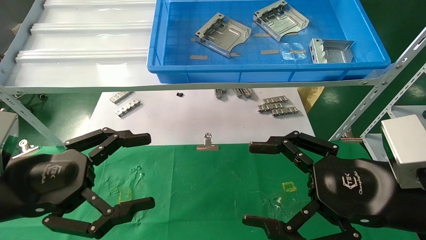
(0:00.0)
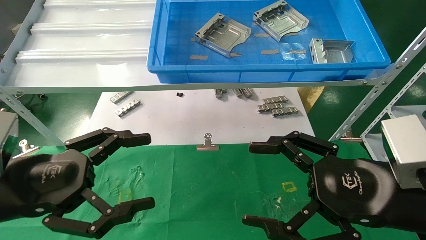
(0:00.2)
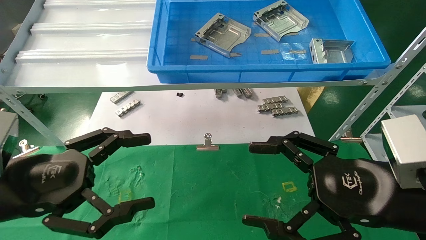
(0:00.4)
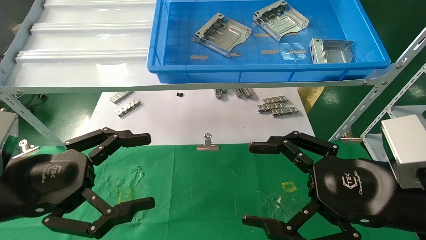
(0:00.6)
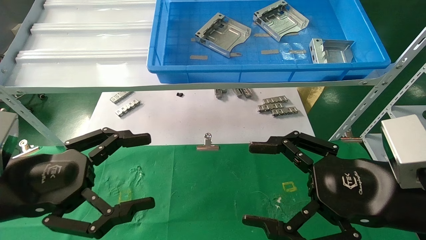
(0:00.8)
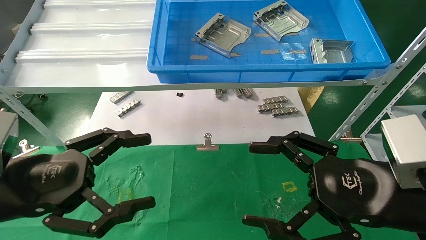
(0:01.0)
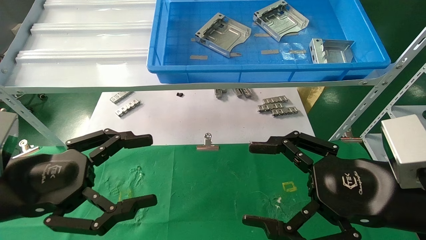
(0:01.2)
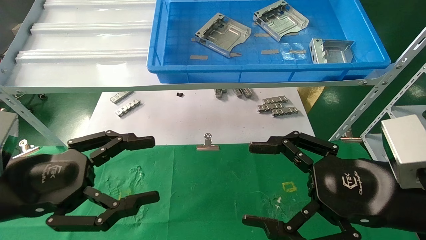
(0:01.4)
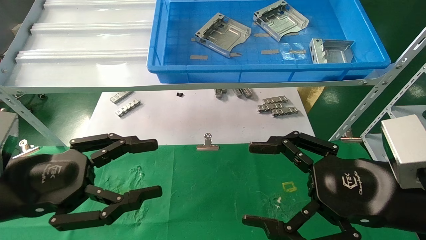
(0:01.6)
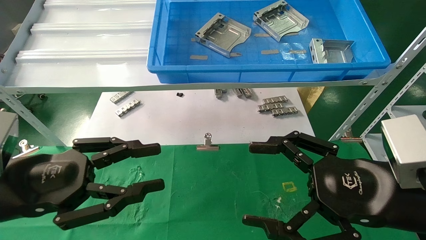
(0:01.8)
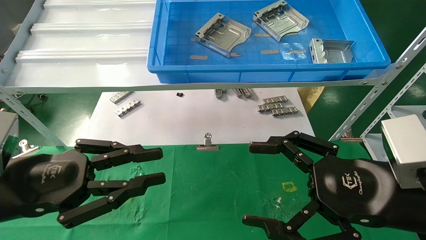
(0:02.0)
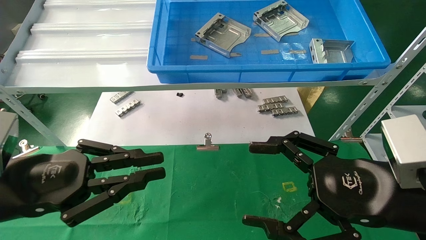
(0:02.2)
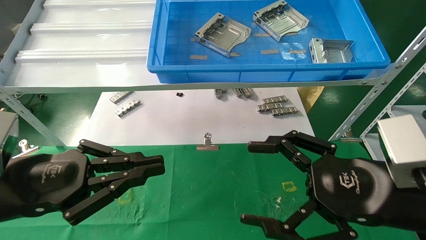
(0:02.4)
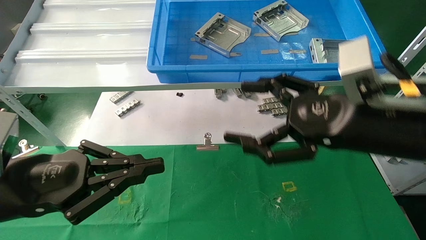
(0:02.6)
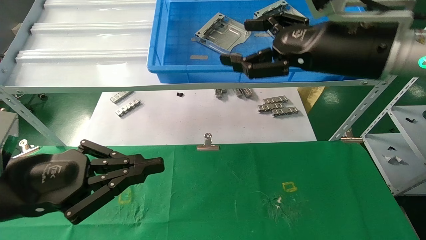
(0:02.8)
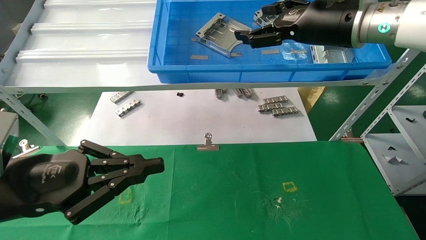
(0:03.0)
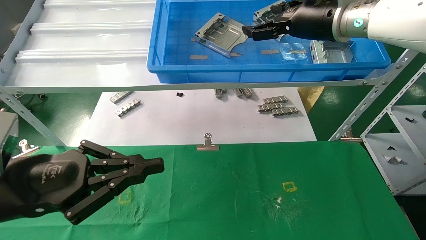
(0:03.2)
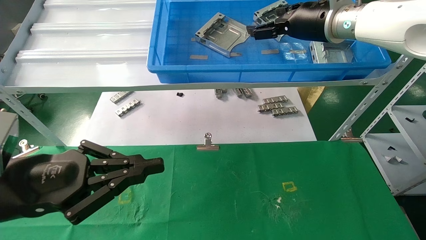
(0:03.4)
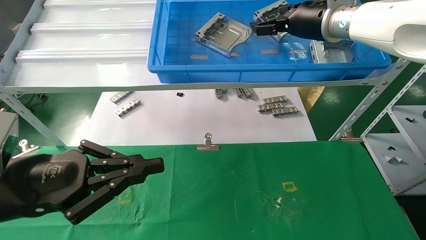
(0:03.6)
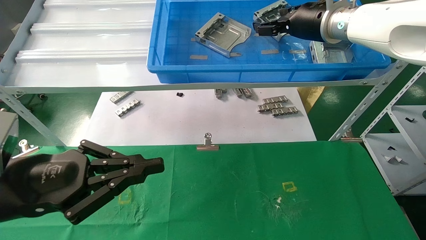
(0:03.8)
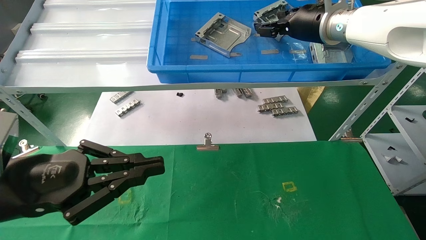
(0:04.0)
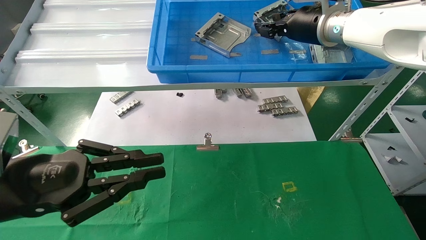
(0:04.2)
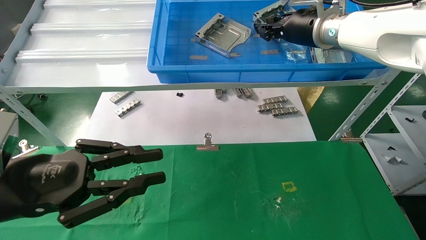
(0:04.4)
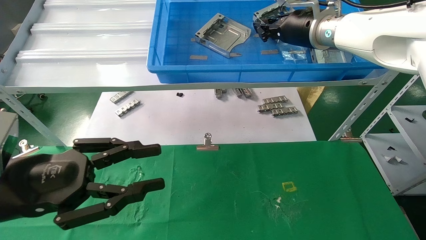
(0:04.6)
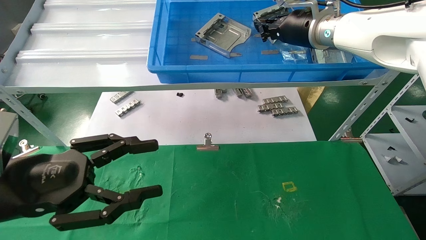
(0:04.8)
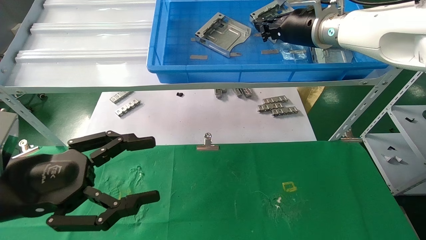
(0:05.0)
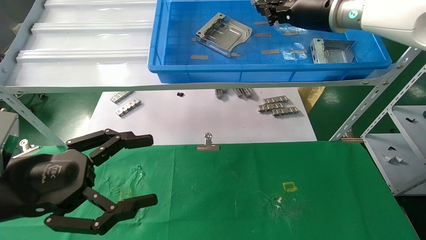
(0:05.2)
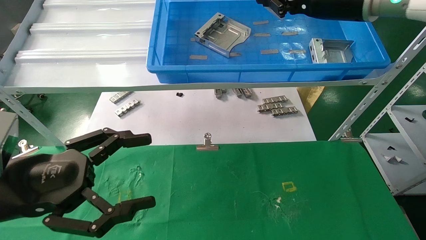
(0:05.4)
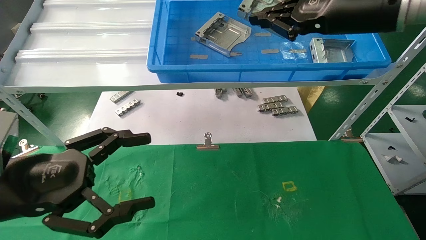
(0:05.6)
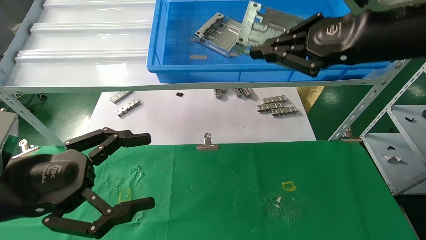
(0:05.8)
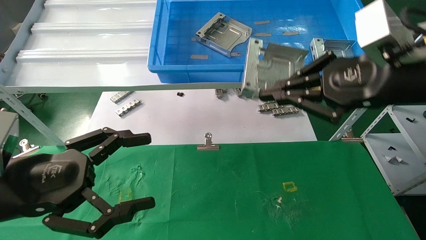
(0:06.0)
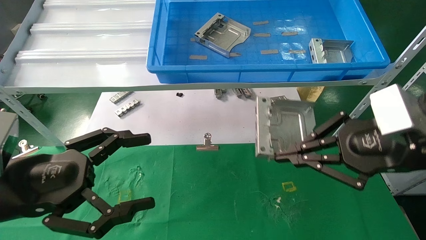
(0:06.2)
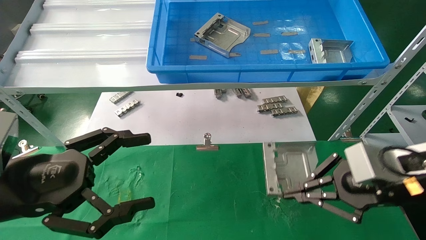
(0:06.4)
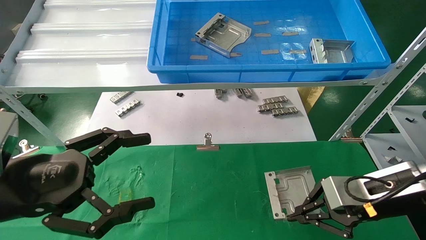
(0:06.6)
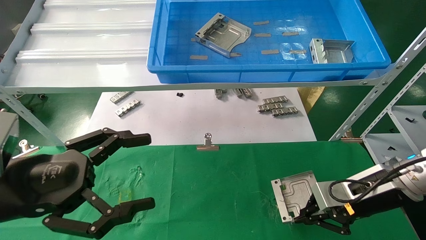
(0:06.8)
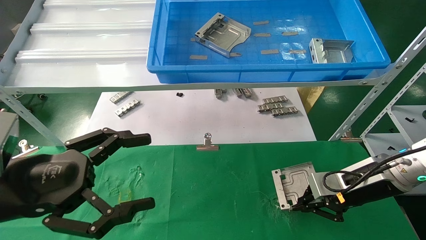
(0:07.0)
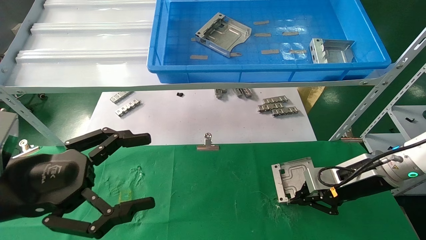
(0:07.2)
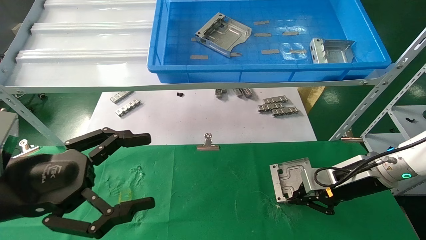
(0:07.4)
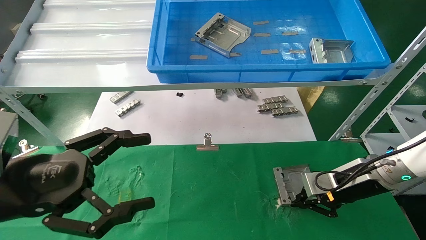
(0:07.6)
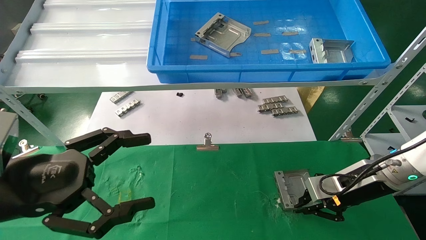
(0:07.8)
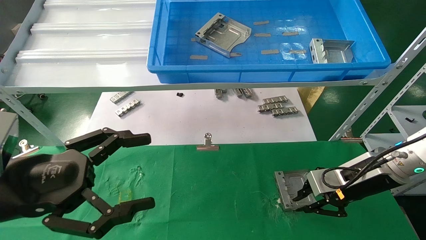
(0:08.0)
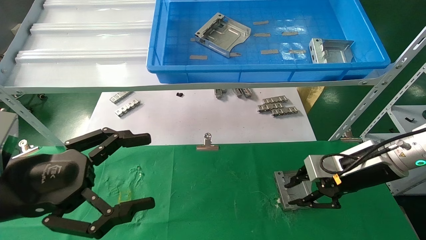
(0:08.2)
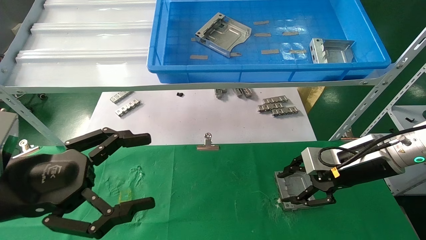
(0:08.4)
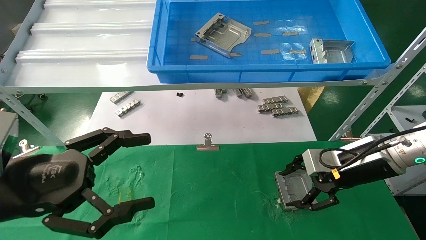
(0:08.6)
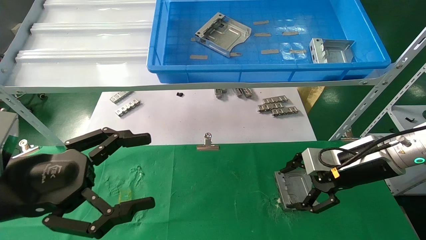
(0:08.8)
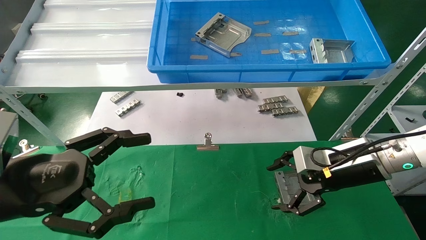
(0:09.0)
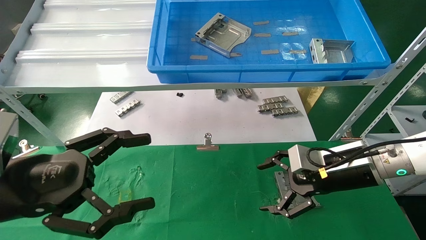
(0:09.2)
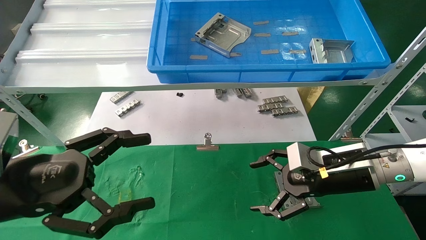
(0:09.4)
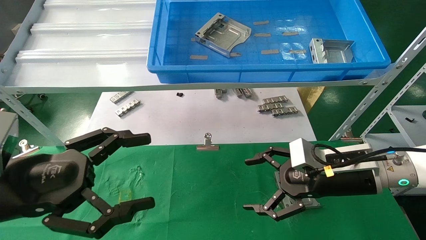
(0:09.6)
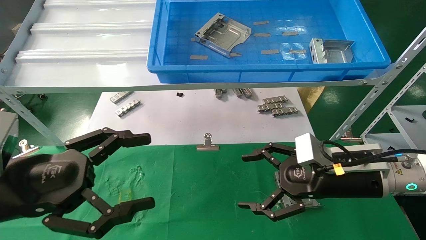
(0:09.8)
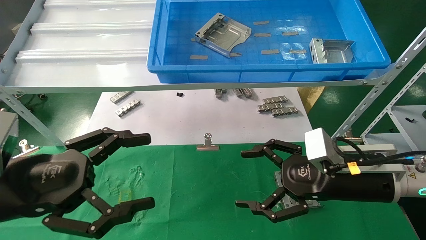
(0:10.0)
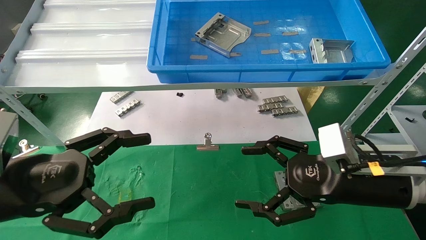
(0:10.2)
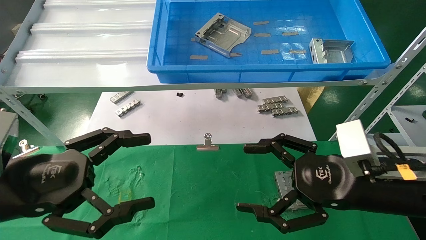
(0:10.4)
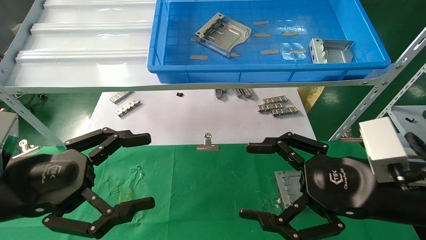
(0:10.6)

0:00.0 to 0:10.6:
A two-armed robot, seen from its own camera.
Task of the whole recording: use the mechanical arm to pick up the parts and place them on the table.
Step, 0:02.8 to 0:06.0: Pick up the hard drive bracket from the feeding area.
Step, 0:06.2 to 0:09.4: Place the hard drive bracket into the box.
0:00.0 to 0:01.6: Both grippers stay put.
0:01.6 to 0:03.0: The left gripper closes, while the right gripper heads upward and forward, covering about 25 cm.
0:03.0 to 0:04.6: The right gripper heads forward, covering roughly 10 cm, and closes up.
0:04.6 to 0:06.0: The left gripper opens its fingers. The right gripper travels backward and to the right by some 20 cm.
0:06.0 to 0:07.6: The right gripper moves downward and forward, some 25 cm.
0:07.6 to 0:09.0: The right gripper opens up.
0:09.0 to 0:10.6: The right gripper shifts roughly 15 cm backward.

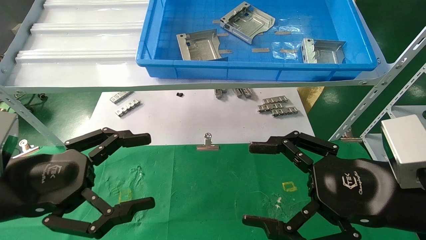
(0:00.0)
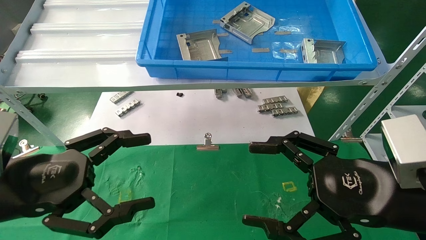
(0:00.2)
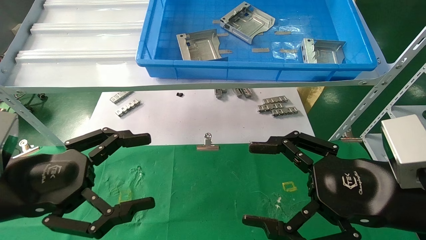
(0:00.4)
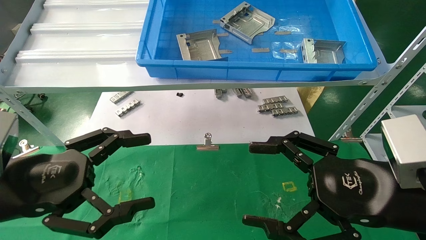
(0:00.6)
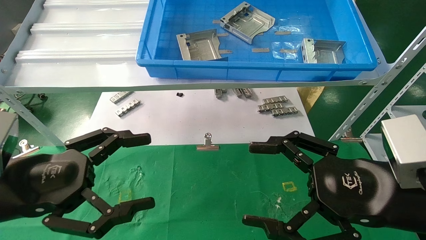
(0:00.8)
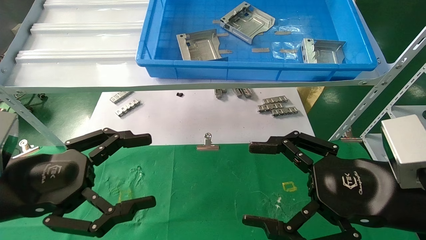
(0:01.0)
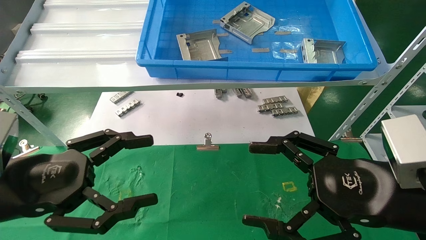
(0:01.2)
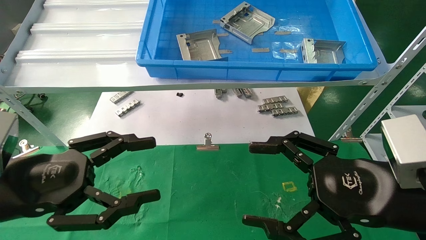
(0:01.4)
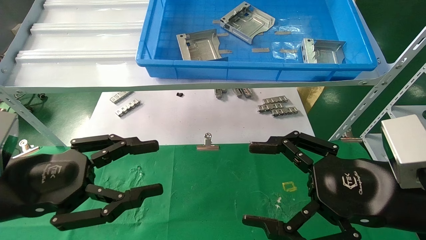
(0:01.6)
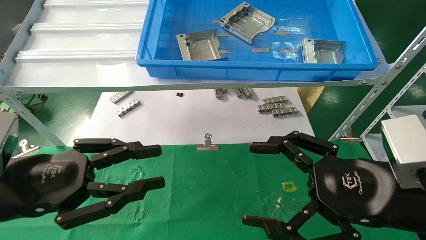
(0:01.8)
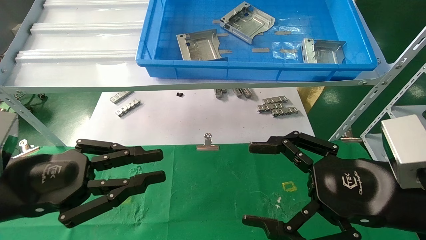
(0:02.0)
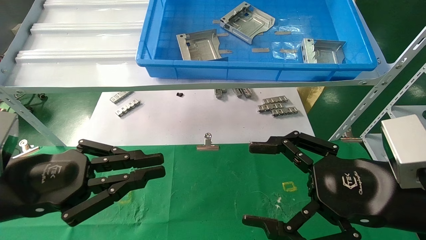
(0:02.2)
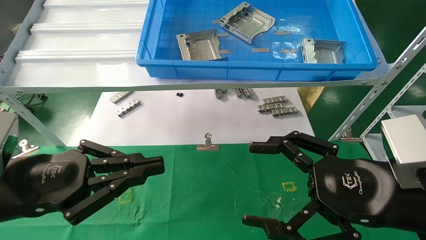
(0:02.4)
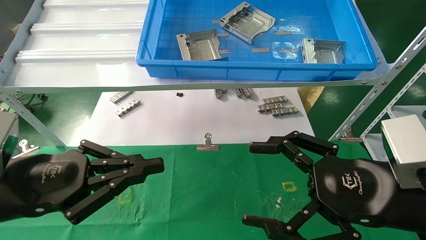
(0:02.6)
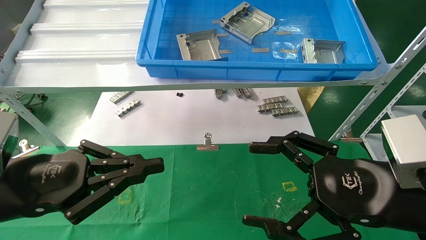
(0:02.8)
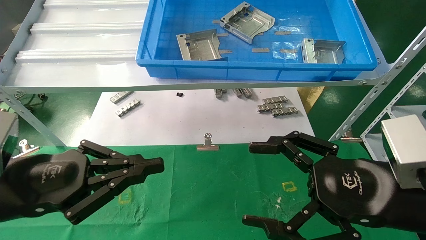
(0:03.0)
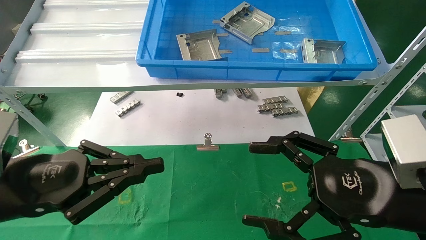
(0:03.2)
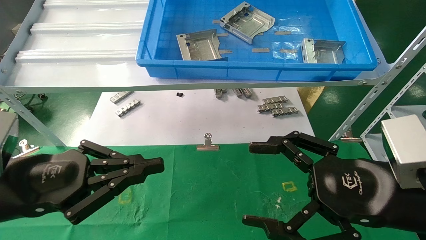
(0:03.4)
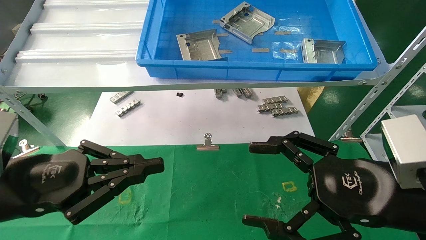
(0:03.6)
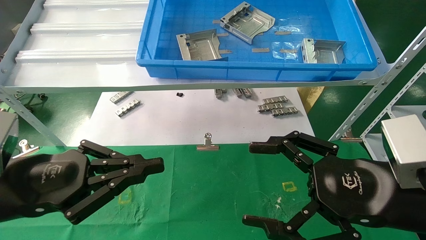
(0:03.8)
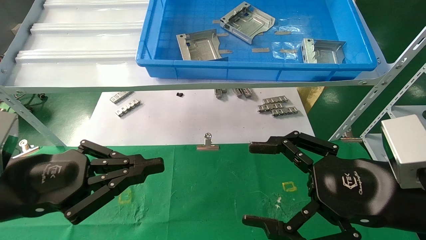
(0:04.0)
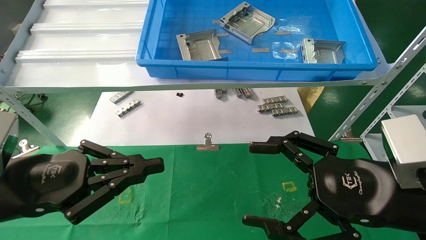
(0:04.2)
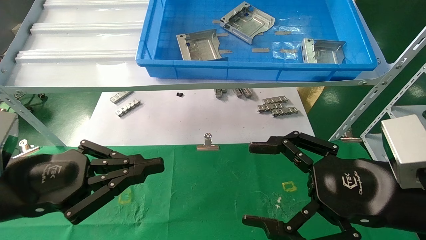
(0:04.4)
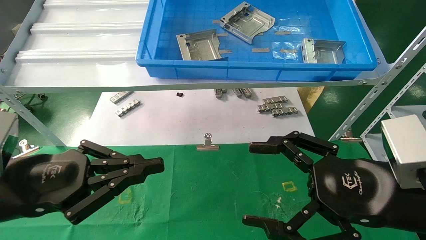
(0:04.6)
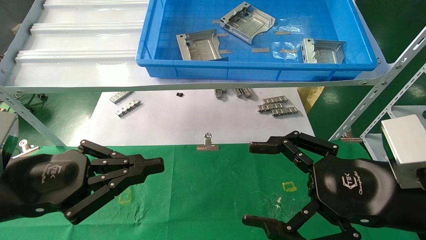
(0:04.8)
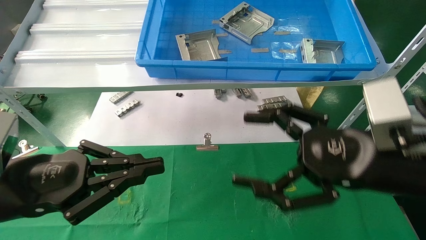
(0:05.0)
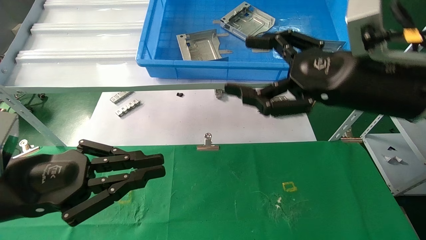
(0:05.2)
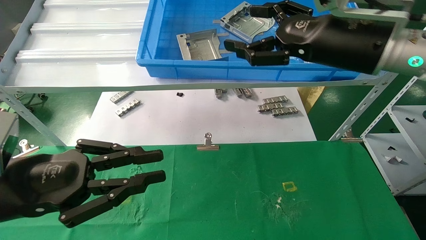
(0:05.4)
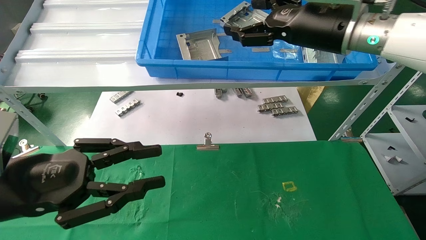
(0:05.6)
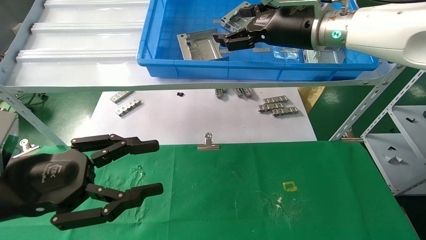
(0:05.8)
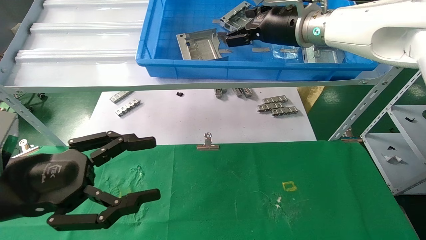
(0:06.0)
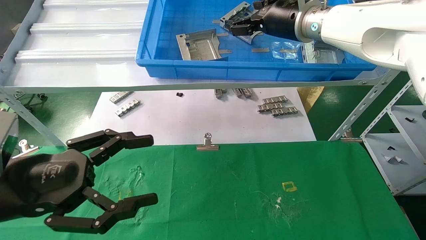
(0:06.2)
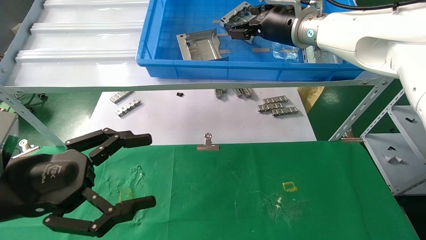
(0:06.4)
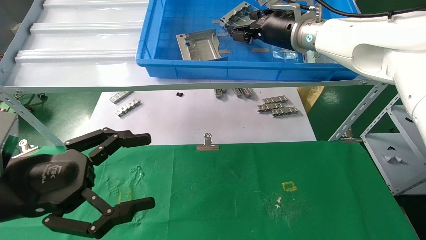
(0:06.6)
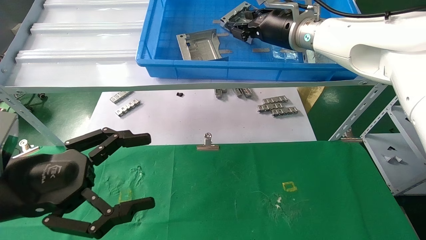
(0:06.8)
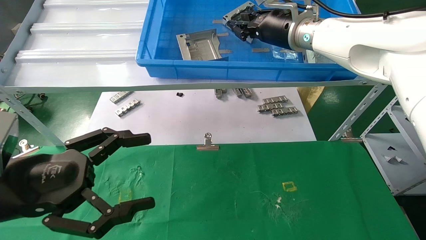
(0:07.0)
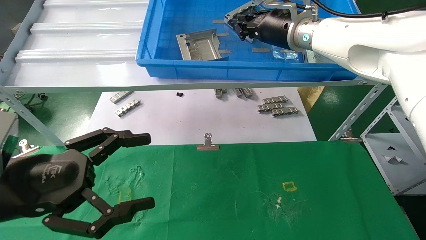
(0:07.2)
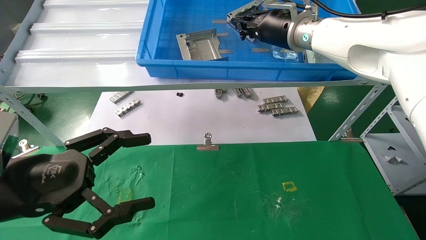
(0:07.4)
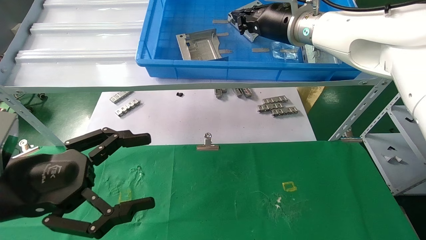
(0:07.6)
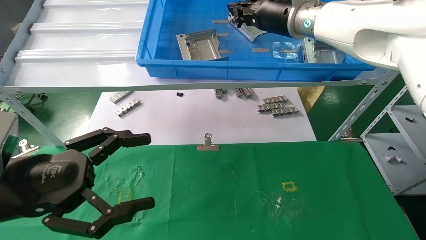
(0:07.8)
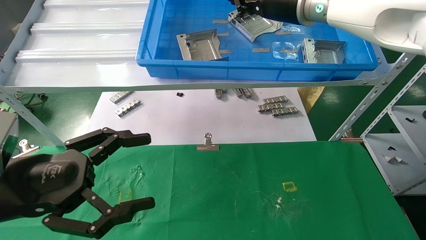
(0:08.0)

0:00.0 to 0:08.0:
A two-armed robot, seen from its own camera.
Task of the whole recording: use the mechanical arm to pick up the parts and place them on the table.
0:00.0 to 0:01.6: The two grippers keep their place.
0:01.6 to 0:03.2: The left gripper closes up.
0:04.8 to 0:06.4: The right gripper goes some 30 cm forward and upward. Meanwhile the left gripper opens up.
0:06.4 to 0:08.0: The right gripper closes its fingers.
